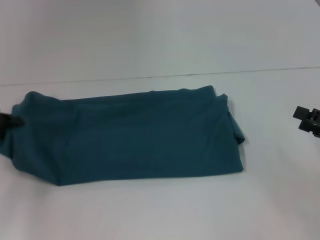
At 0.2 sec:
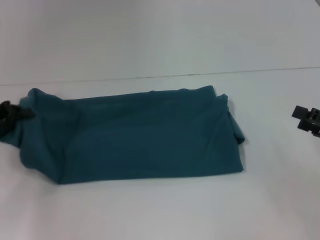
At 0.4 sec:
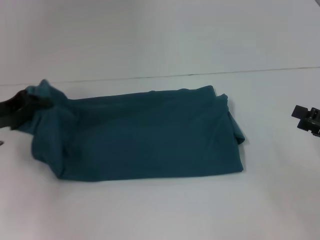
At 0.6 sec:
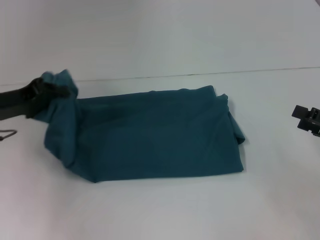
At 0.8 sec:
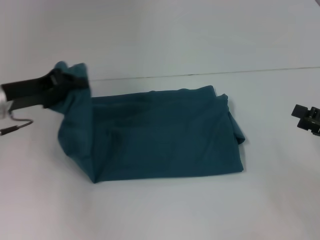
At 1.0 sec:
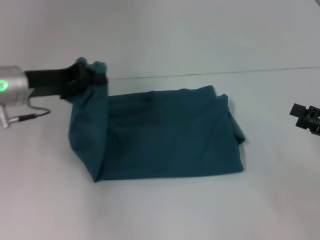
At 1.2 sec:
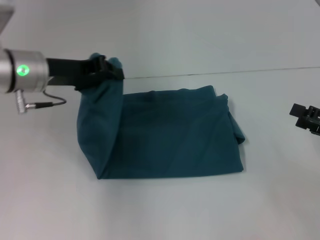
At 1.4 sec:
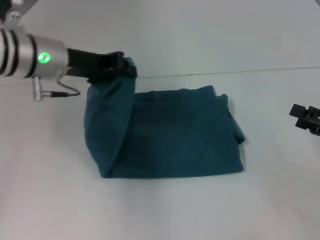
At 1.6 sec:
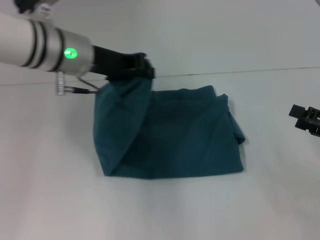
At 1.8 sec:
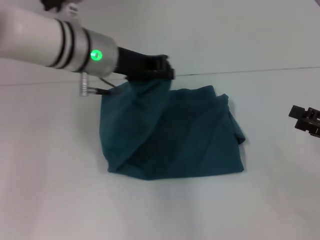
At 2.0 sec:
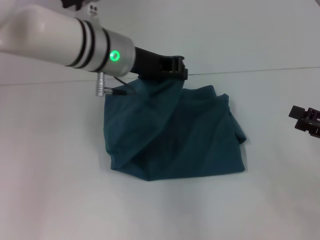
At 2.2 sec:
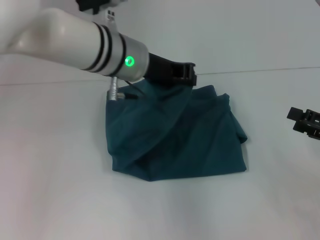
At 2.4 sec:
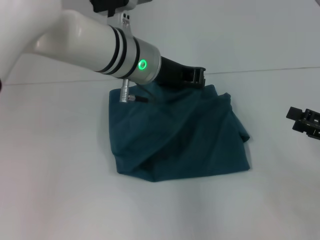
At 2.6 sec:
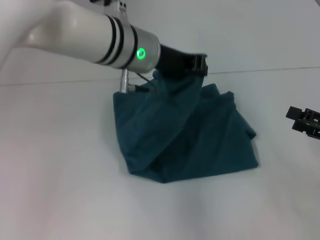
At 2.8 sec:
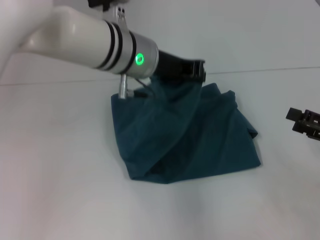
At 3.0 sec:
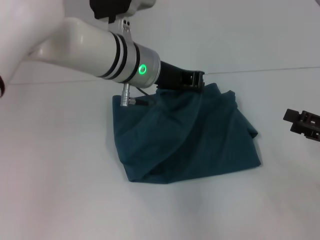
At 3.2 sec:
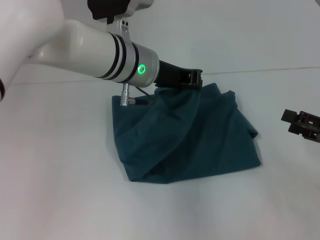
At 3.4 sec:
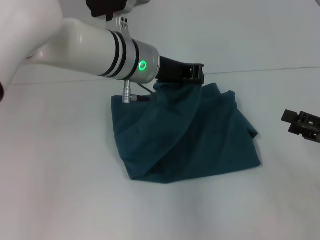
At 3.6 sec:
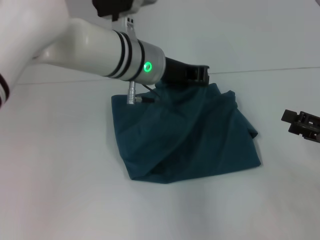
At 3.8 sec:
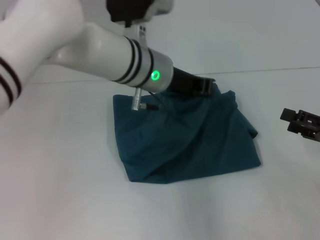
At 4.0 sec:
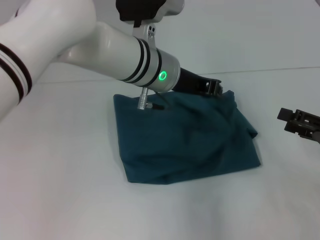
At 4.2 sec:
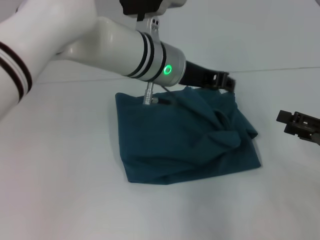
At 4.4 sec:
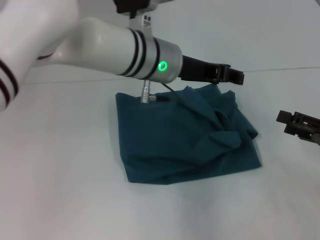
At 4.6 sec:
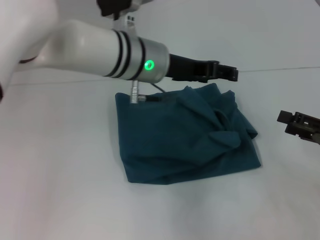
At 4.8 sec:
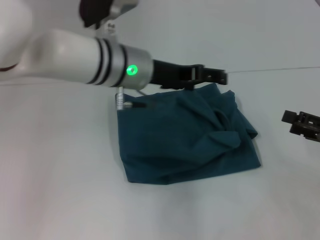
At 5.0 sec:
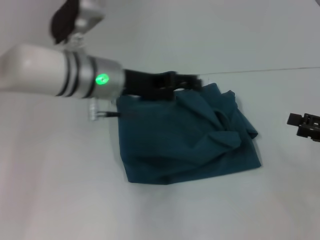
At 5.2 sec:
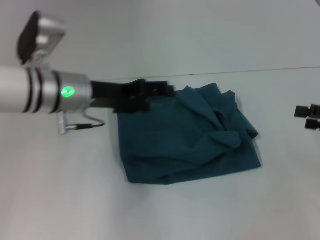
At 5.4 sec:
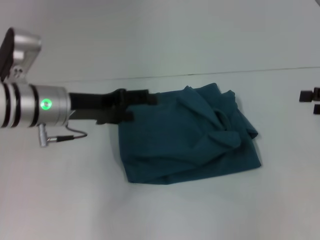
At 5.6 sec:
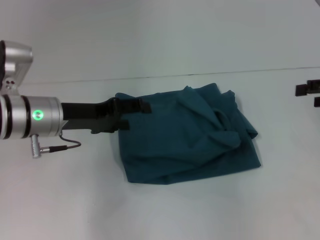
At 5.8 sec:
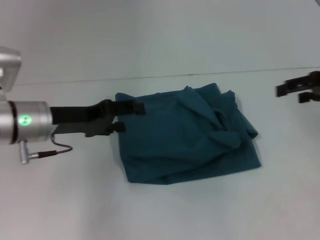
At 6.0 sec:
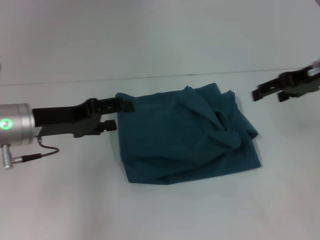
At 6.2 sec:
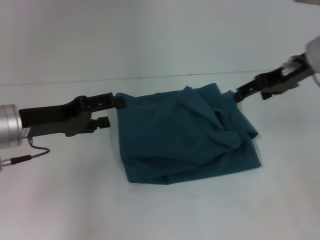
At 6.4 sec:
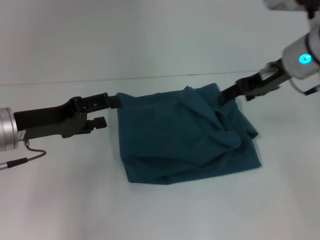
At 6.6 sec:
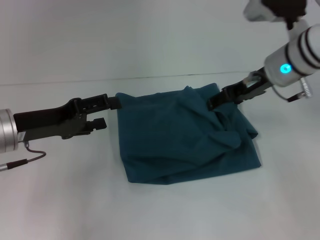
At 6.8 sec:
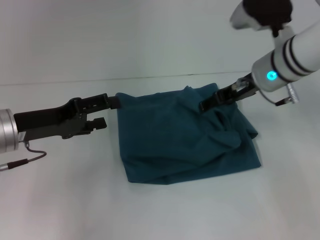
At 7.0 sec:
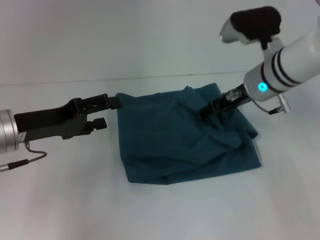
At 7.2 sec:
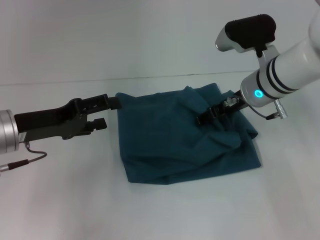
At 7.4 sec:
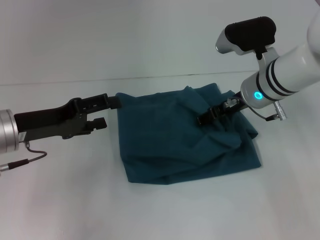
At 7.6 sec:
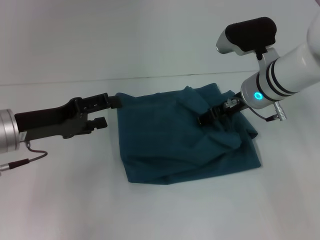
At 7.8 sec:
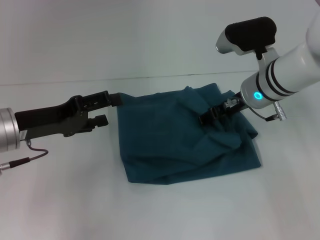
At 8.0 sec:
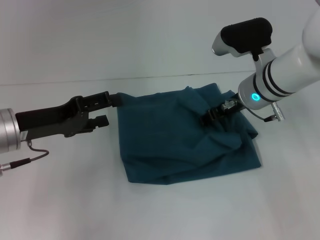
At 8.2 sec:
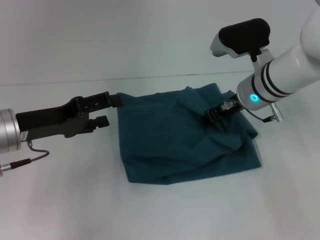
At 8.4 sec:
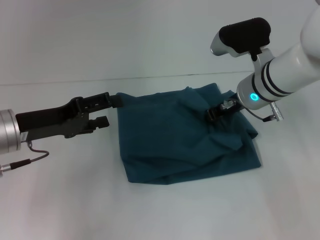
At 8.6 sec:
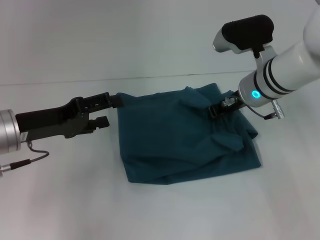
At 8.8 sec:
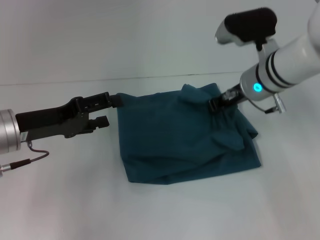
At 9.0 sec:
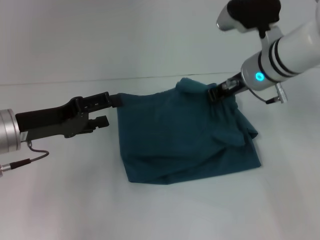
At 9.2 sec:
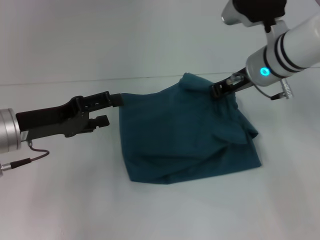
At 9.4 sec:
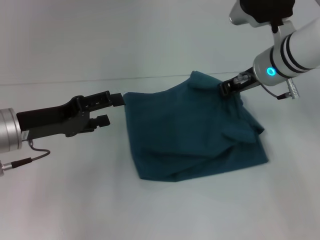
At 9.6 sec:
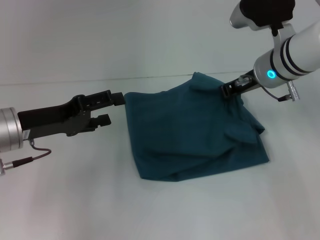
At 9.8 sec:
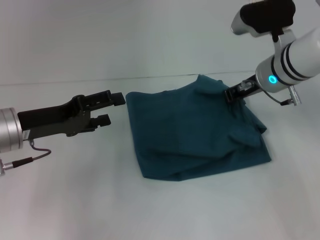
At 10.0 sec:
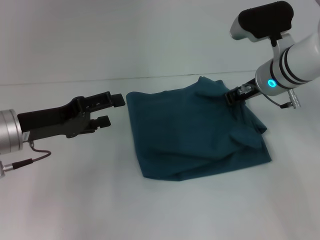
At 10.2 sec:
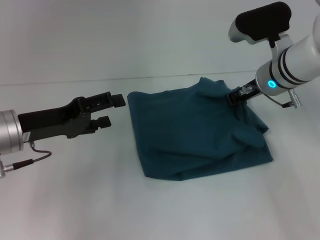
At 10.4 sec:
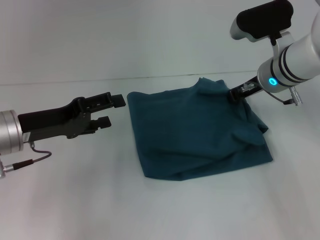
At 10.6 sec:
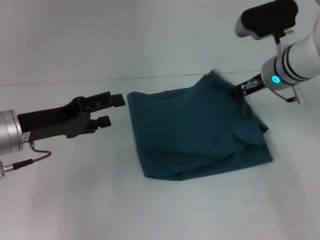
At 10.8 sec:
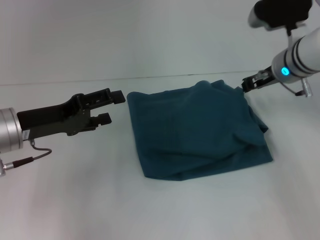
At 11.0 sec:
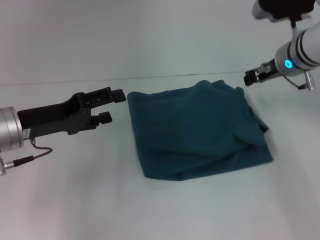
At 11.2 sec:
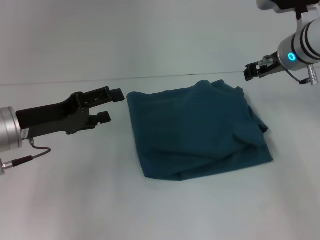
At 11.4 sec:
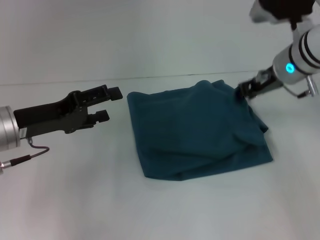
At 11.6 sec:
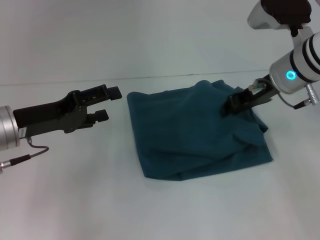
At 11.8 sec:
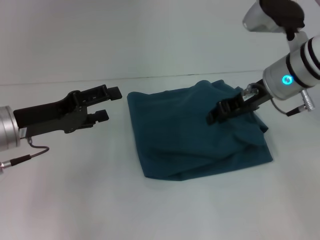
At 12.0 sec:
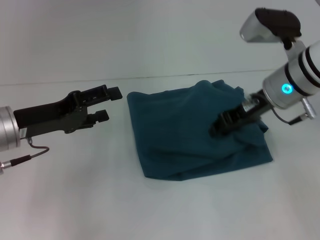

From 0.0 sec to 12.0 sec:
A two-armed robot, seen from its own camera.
Step, from 0.0 sec to 4.8 sec: Fold the clothes to the left.
From 0.0 sec to 1.6 sec: The left gripper heads to the right, upward and forward, covering some 25 cm.
From 1.6 sec to 3.0 sec: The left gripper is displaced to the right by approximately 10 cm.
From 3.0 sec to 4.4 sec: The left gripper opens.
From 4.4 sec to 6.0 sec: The right gripper shifts some 20 cm forward, upward and to the left. Meanwhile the left gripper moves to the left, some 20 cm, and opens its fingers.
From 6.0 sec to 7.6 sec: The right gripper shifts roughly 15 cm to the left and downward.
From 7.6 sec to 9.0 sec: The right gripper closes its fingers.
From 9.0 sec to 10.4 sec: The grippers make only small movements.

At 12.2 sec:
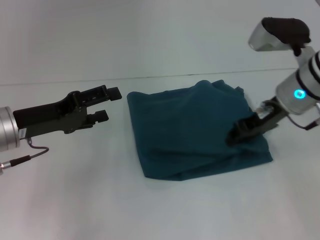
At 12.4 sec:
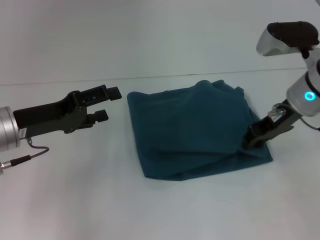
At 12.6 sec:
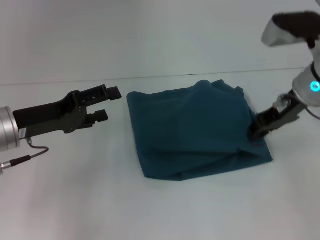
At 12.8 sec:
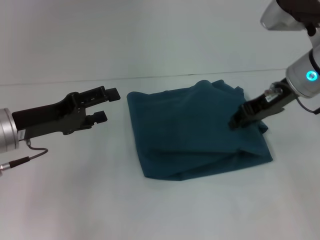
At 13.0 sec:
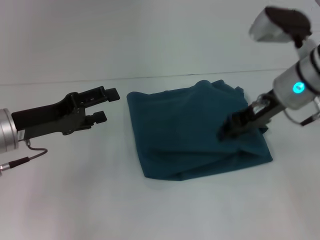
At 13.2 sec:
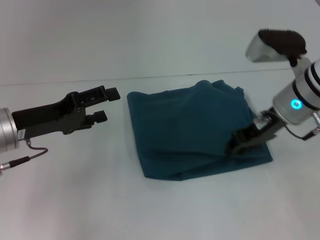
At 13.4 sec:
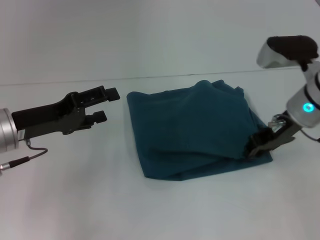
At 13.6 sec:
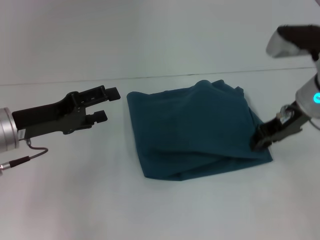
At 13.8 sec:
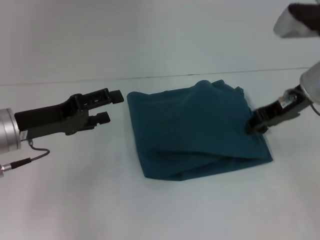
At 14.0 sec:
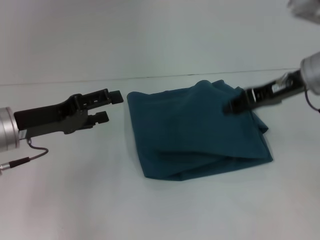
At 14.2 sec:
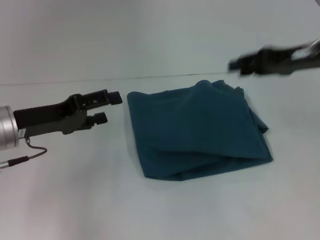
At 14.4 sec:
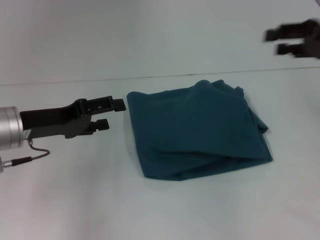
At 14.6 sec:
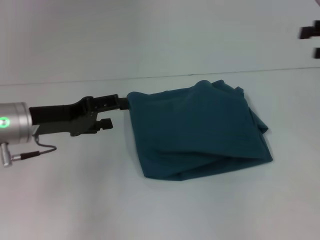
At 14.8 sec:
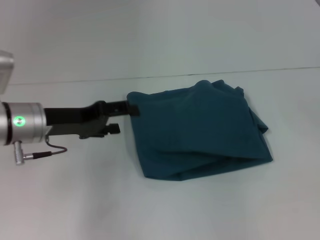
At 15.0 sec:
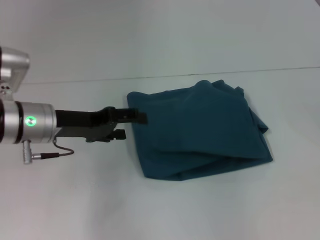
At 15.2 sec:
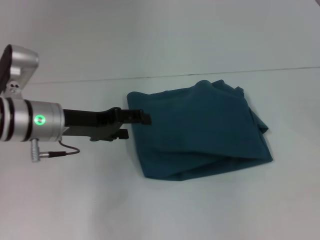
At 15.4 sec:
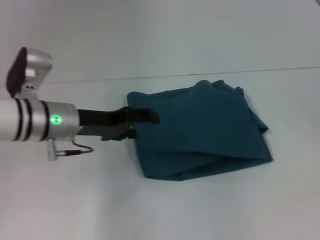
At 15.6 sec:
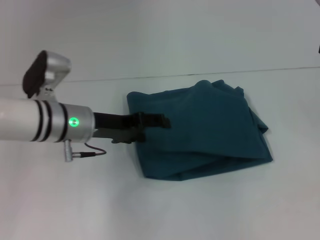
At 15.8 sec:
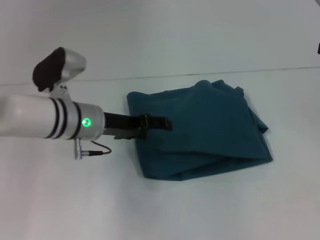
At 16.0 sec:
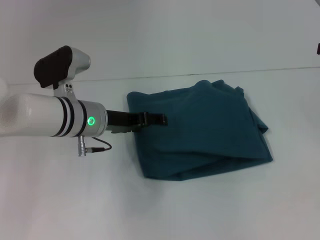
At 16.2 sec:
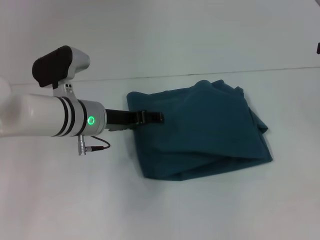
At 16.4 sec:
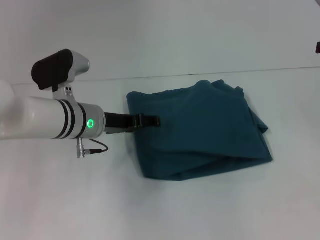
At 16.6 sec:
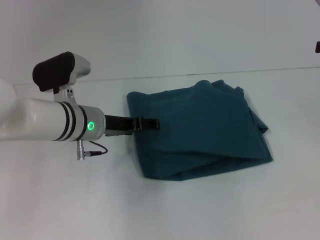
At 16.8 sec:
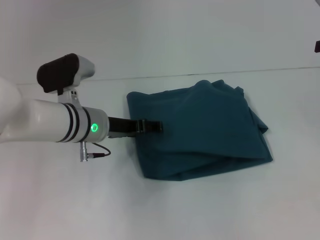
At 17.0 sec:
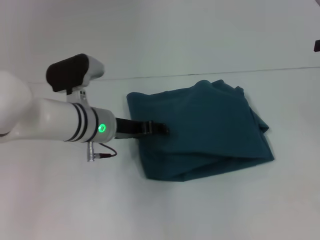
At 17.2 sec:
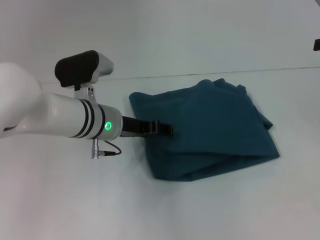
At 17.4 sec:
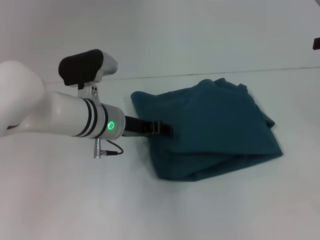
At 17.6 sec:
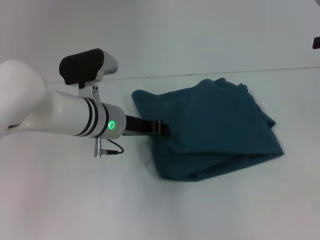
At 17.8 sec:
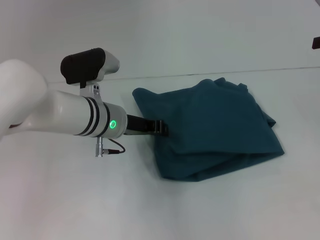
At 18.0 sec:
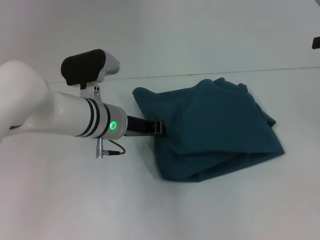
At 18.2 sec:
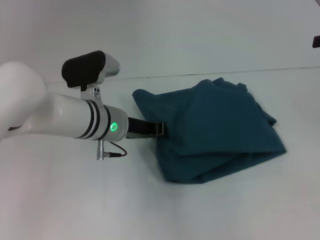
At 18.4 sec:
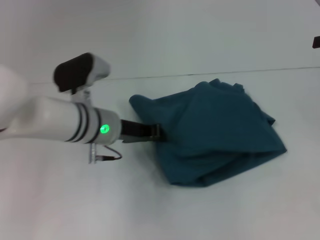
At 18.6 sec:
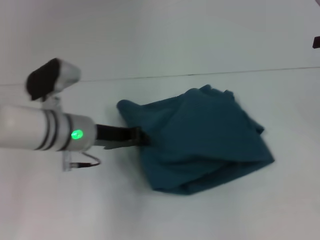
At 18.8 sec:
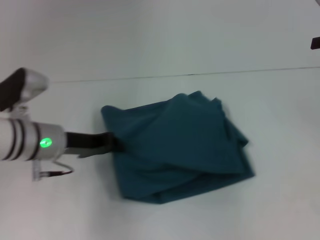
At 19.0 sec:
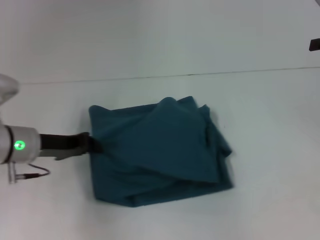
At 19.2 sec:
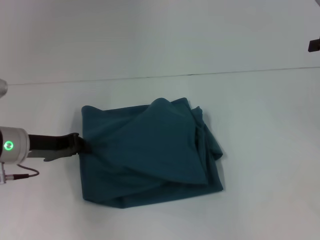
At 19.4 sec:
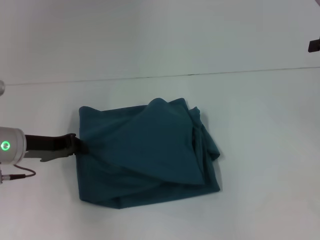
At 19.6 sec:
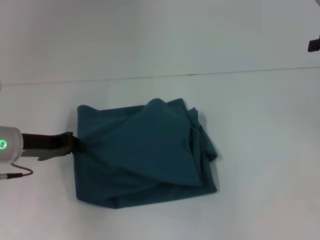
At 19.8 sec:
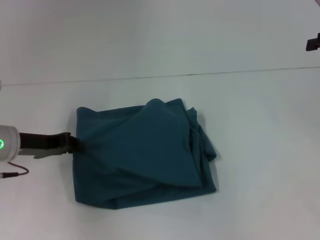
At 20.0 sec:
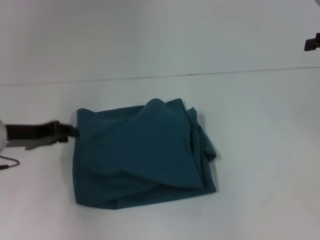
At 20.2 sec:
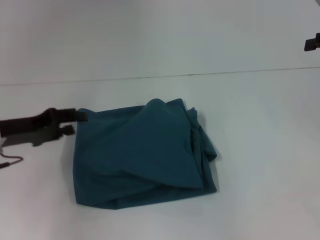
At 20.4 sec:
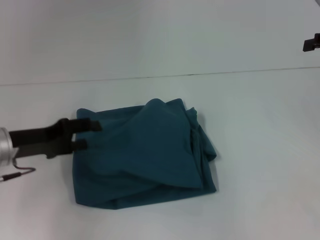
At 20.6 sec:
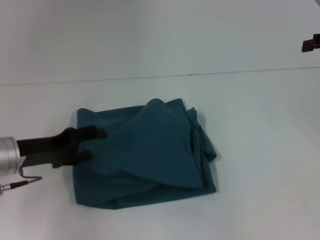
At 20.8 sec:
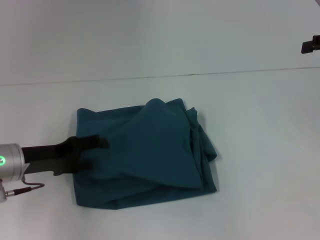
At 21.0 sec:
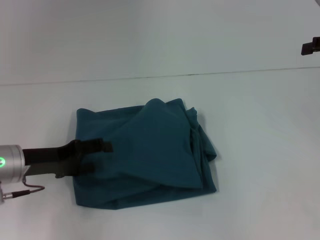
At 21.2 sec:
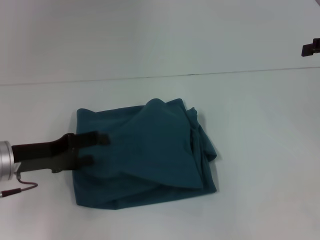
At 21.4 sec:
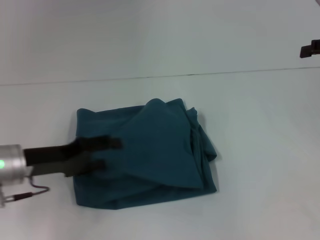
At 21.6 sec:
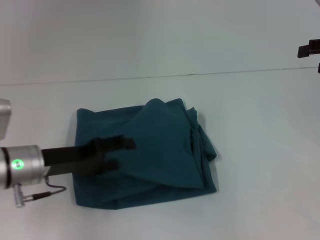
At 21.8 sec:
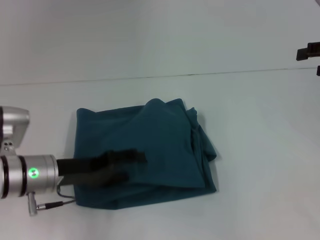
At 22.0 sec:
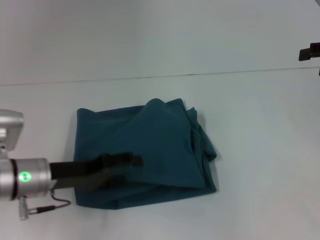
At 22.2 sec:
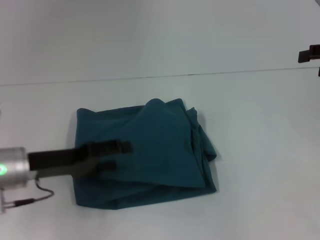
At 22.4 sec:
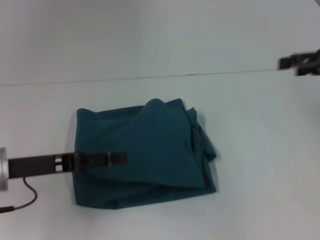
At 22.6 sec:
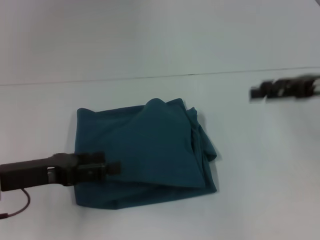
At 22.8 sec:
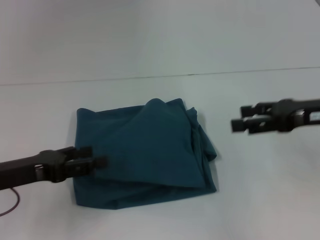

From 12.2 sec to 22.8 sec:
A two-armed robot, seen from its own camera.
From 12.2 sec to 13.8 sec: There are only small adjustments of the grippers.
From 13.8 sec to 15.2 sec: The left gripper shifts by roughly 5 cm. Meanwhile the right gripper is displaced to the right by roughly 15 cm, and opens.
From 15.2 sec to 16.8 sec: The left gripper goes some 5 cm to the right.
From 16.8 sec to 18.2 sec: The left gripper closes.
From 18.2 sec to 19.8 sec: The left gripper travels to the left by approximately 15 cm.
From 19.8 sec to 21.2 sec: The left gripper opens its fingers.
From 21.2 sec to 22.8 sec: The right gripper goes about 10 cm to the left, downward and backward.
